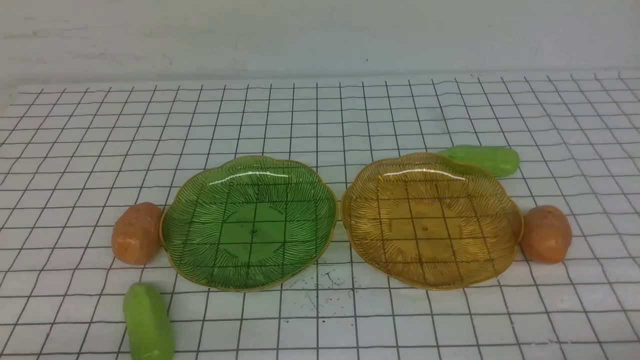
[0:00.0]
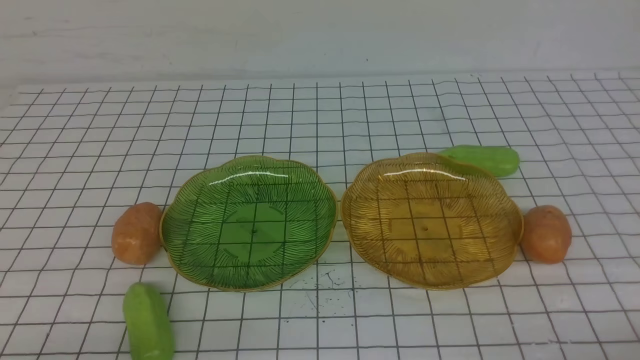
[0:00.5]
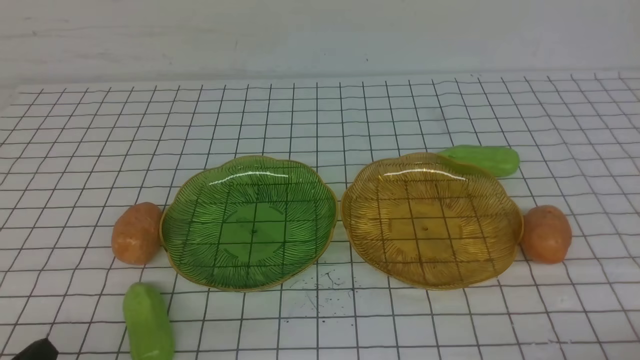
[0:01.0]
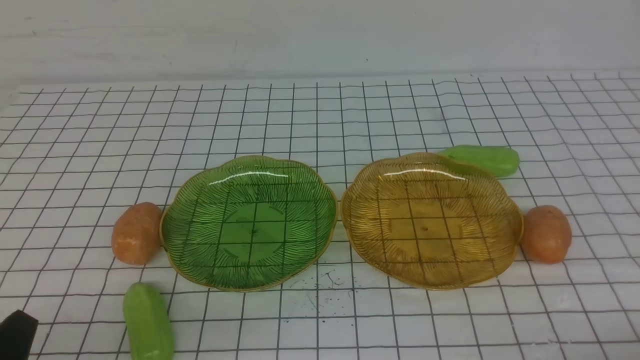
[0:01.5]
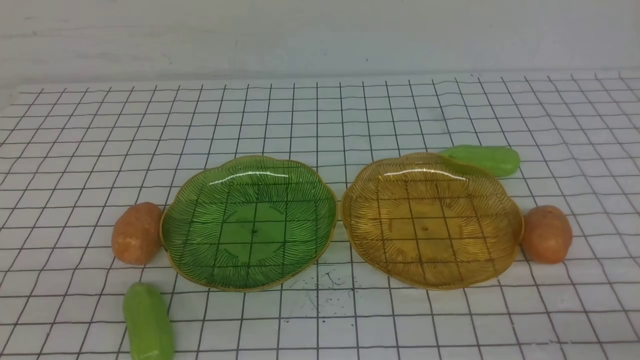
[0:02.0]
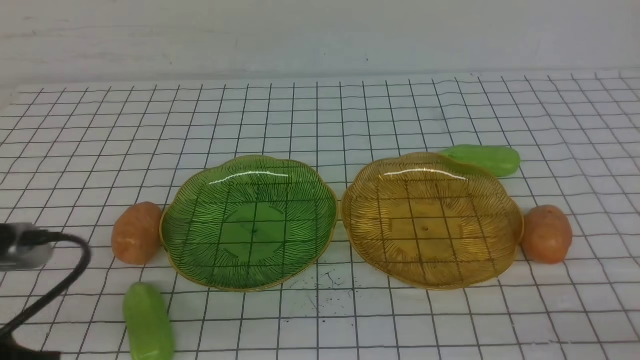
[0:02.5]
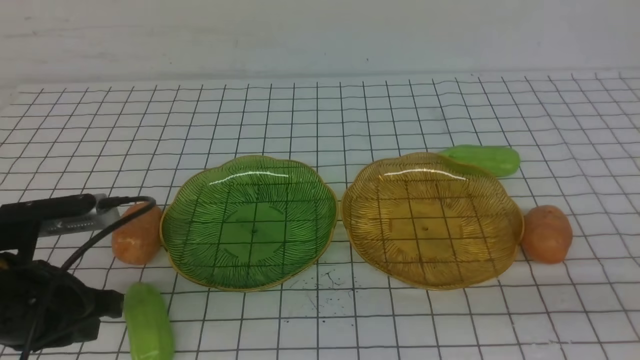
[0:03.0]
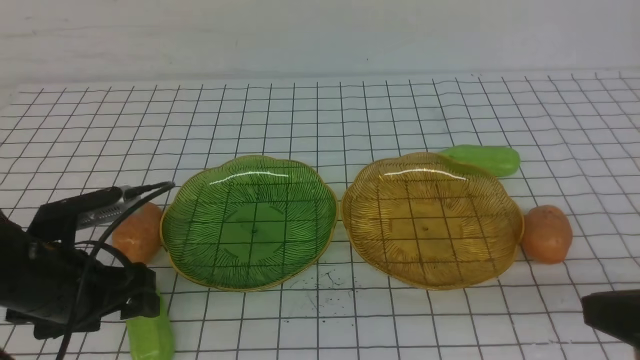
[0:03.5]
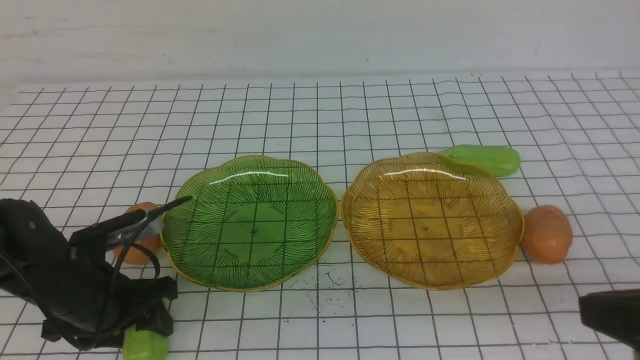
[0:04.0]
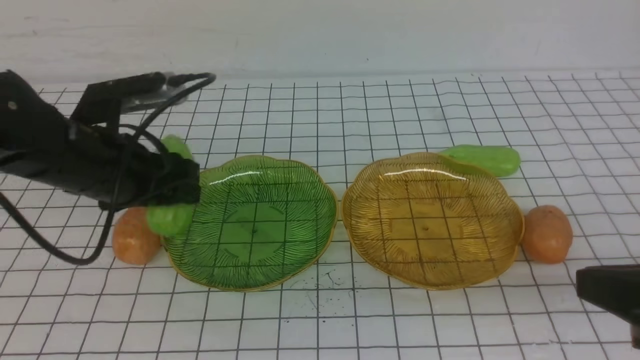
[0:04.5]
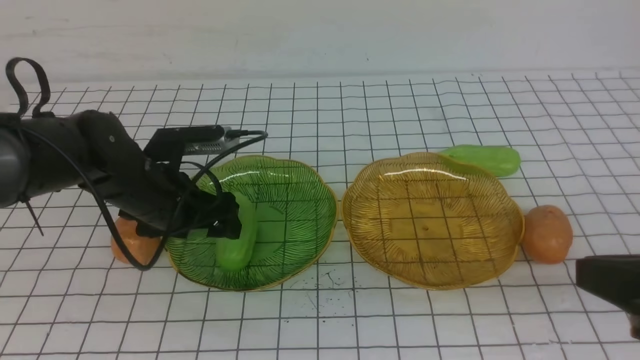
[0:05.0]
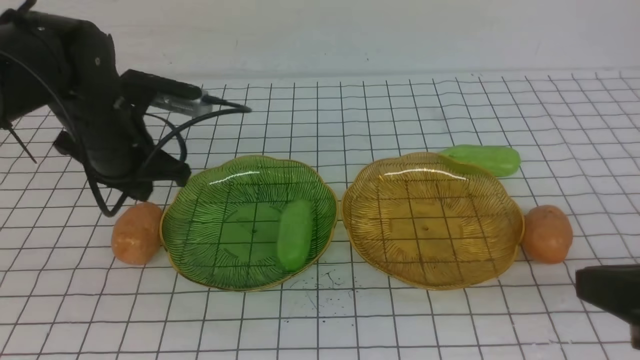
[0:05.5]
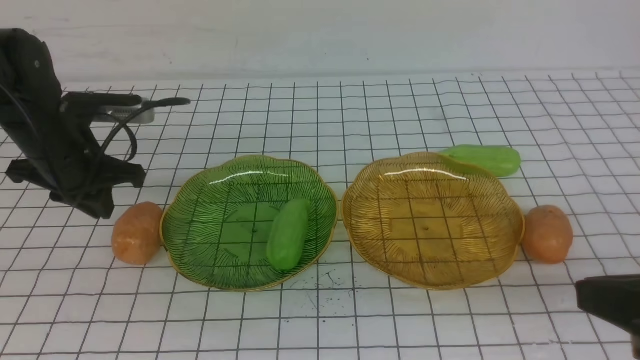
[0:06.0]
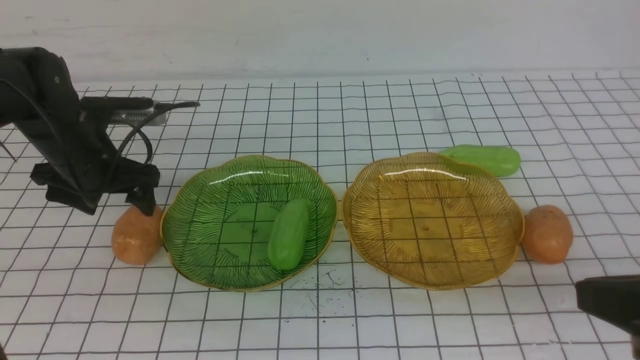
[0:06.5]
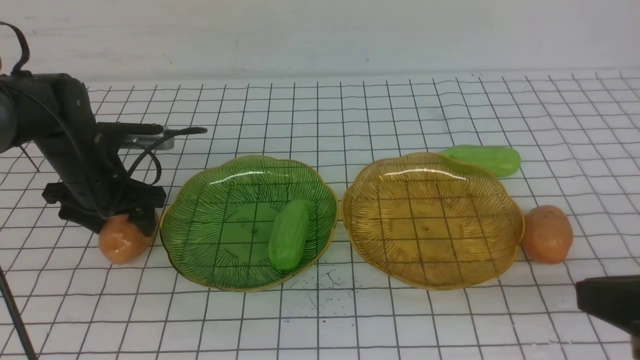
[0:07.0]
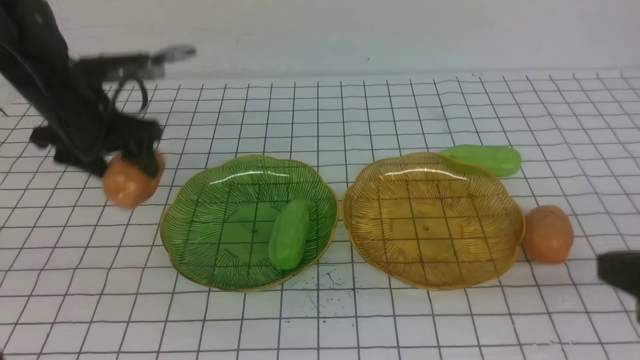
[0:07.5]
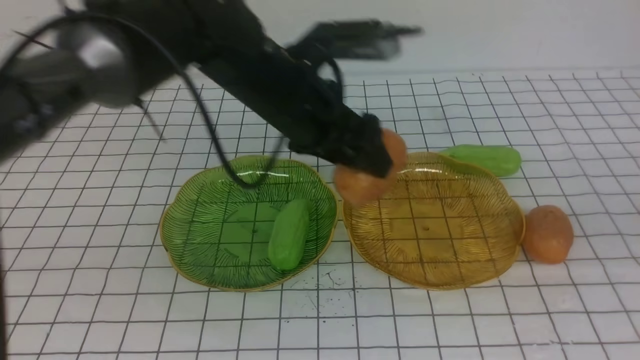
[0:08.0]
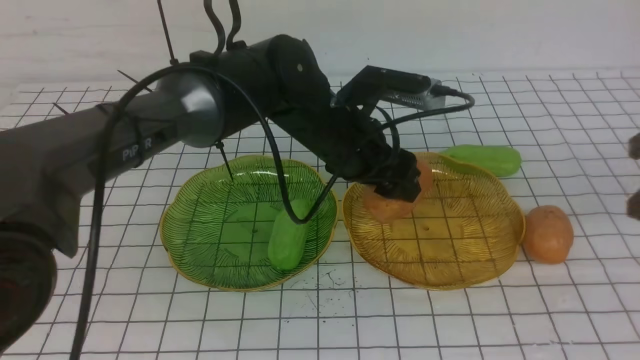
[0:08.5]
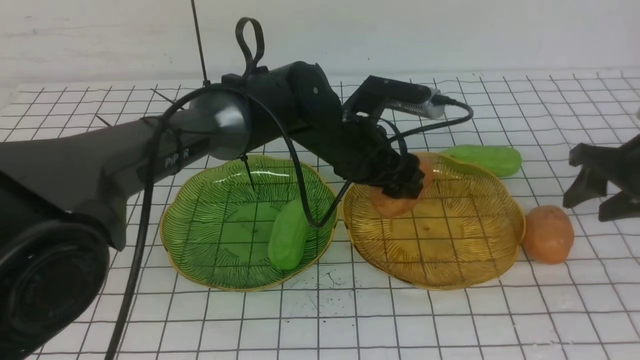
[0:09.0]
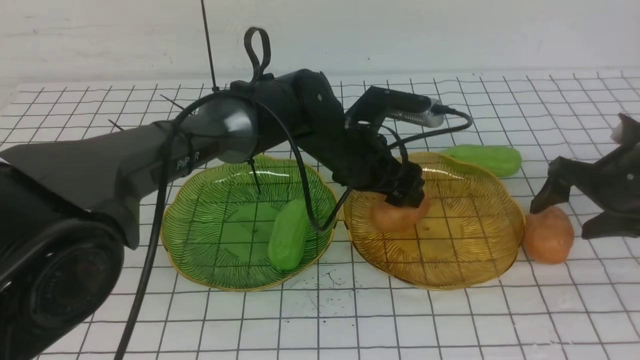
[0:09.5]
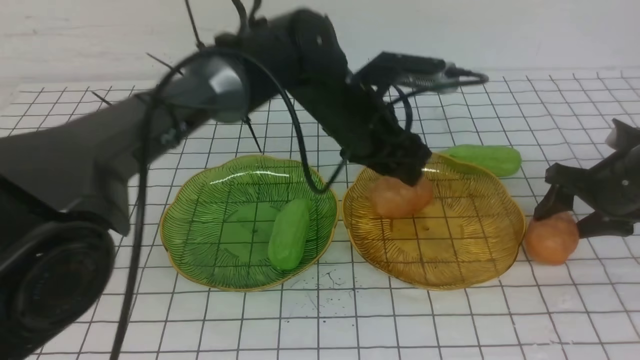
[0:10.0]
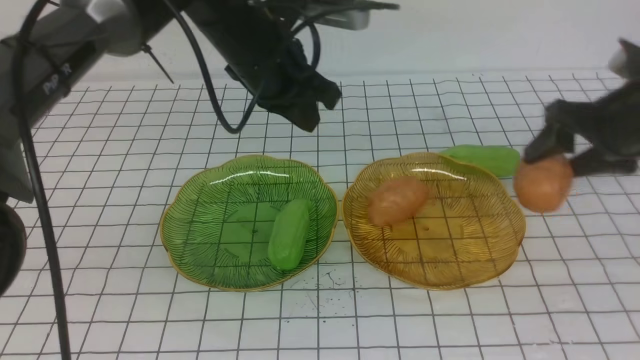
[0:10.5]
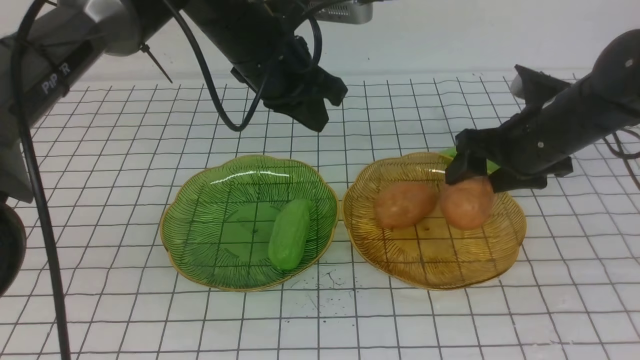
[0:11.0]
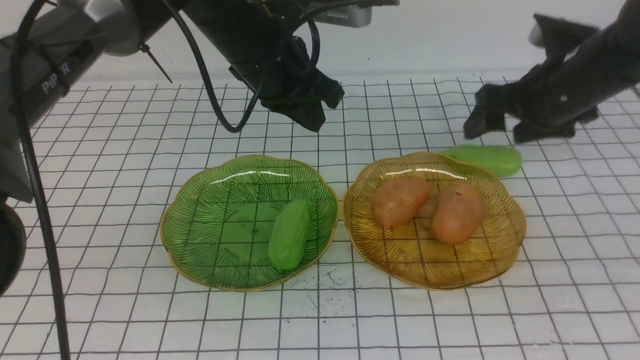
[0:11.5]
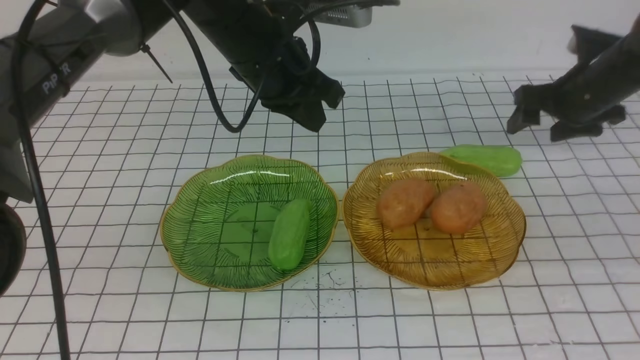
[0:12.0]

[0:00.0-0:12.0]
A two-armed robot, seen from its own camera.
Step, 0:00.0 to 0:05.0: use the left arm to grab a chayote and put it into the left plate.
Step, 0:05.5 to 0:10.0: Grab a potato with your left arm and put it on the right plate.
Step, 0:10.5 to 0:11.0: Grab a potato with your right arm and put it on the right plate.
0:02.0 to 0:04.0: The right gripper shifts roughly 10 cm upward and to the left. Meanwhile the left gripper goes about 20 cm forward and downward, and opens.
0:04.0 to 0:06.0: The left gripper moves forward and upward, roughly 15 cm, and closes its fingers.
0:06.0 to 0:08.0: The right gripper shifts some 10 cm forward, while the left gripper shifts some 25 cm to the right, and opens its fingers.
0:08.0 to 0:10.0: The left gripper goes downward and returns, roughly 10 cm each way; the right gripper travels forward and downward by roughly 25 cm, and opens up.
0:10.0 to 0:12.0: The right gripper moves forward, roughly 10 cm, and reaches roughly 10 cm to the left, then returns, while the left gripper moves to the left and upward, approximately 10 cm, and closes up.

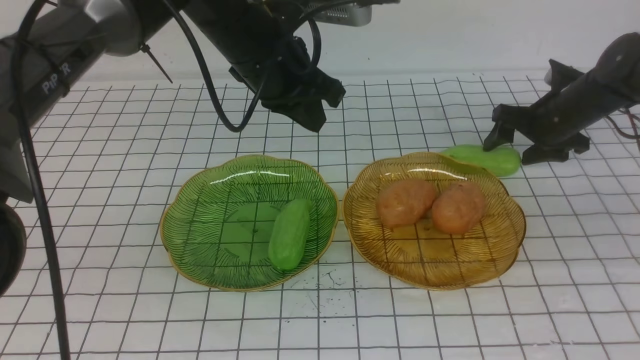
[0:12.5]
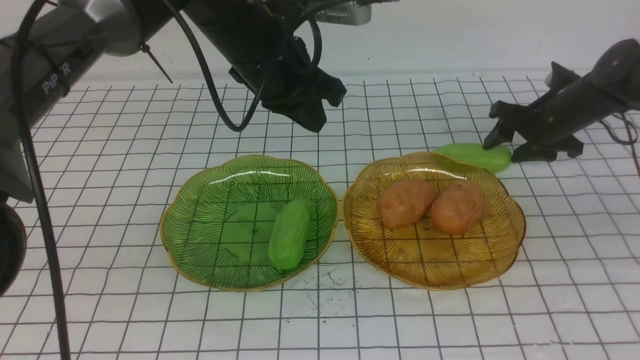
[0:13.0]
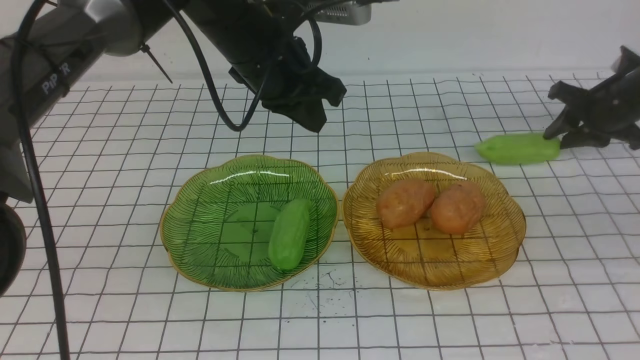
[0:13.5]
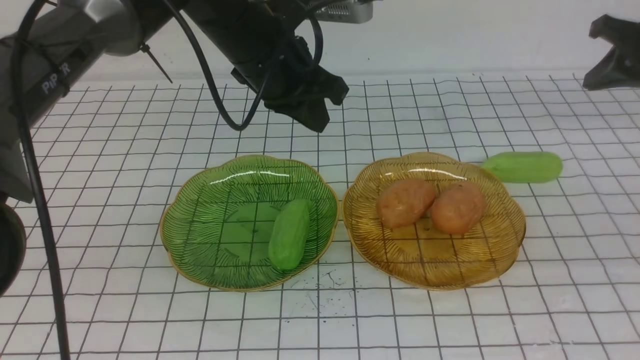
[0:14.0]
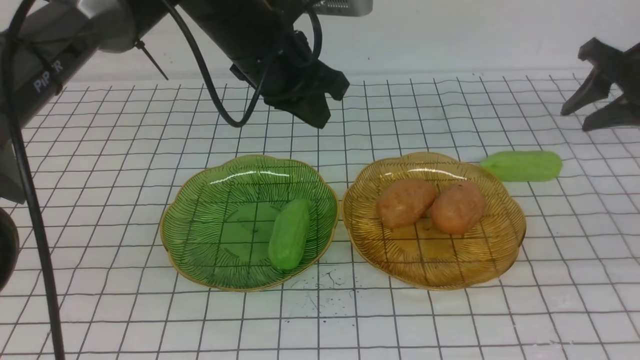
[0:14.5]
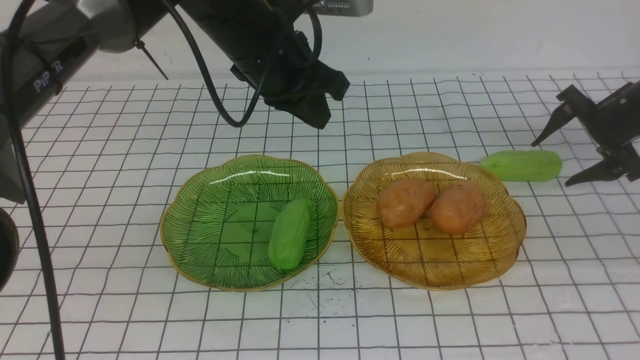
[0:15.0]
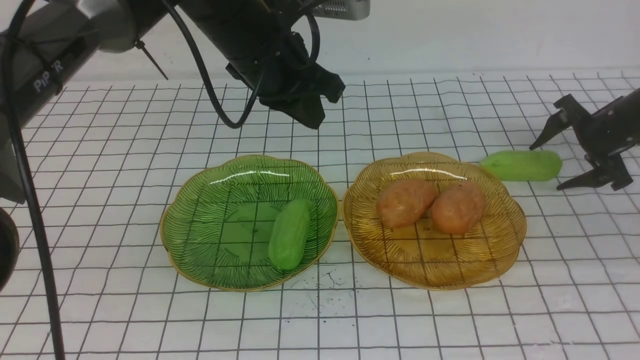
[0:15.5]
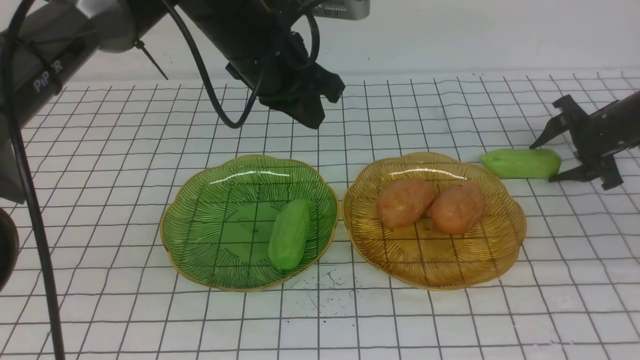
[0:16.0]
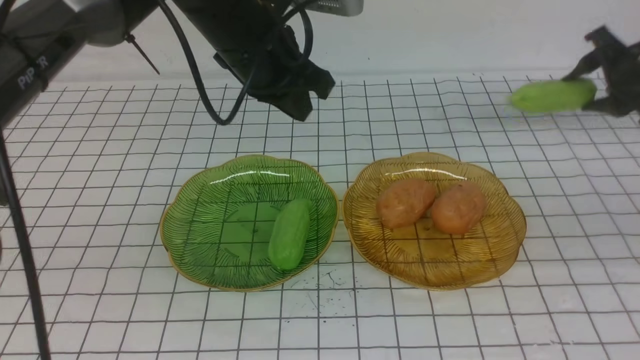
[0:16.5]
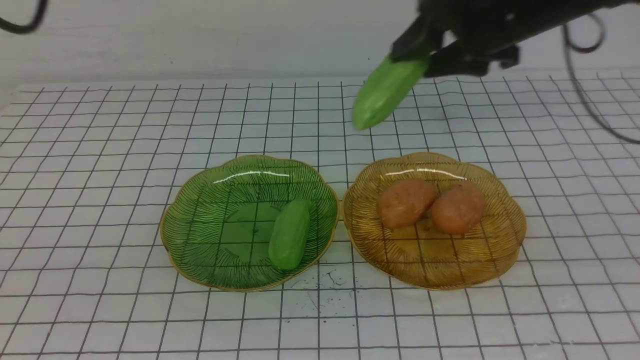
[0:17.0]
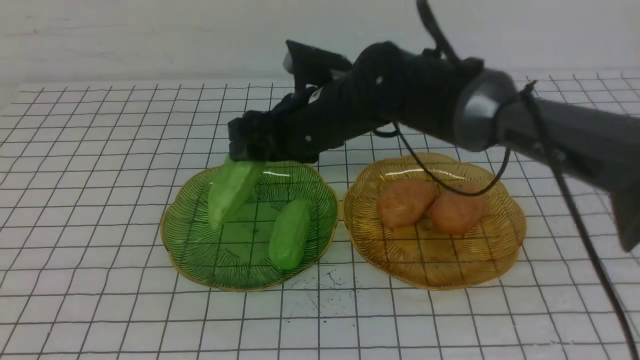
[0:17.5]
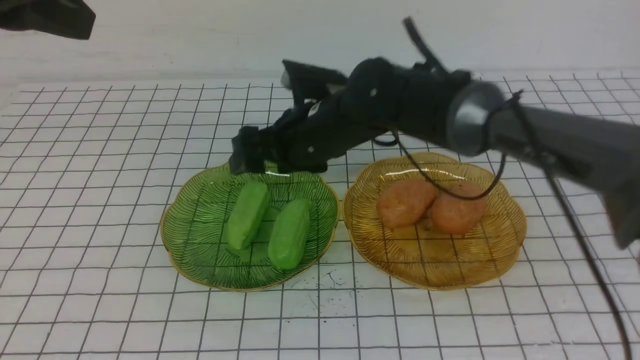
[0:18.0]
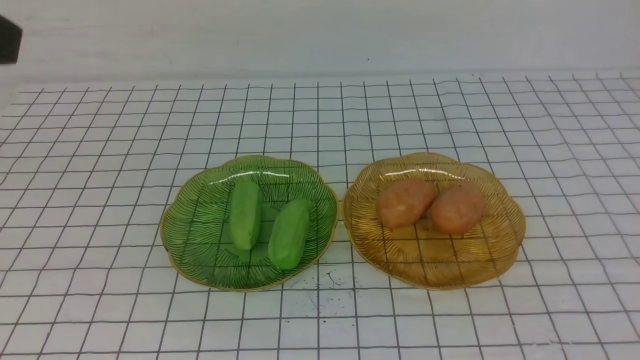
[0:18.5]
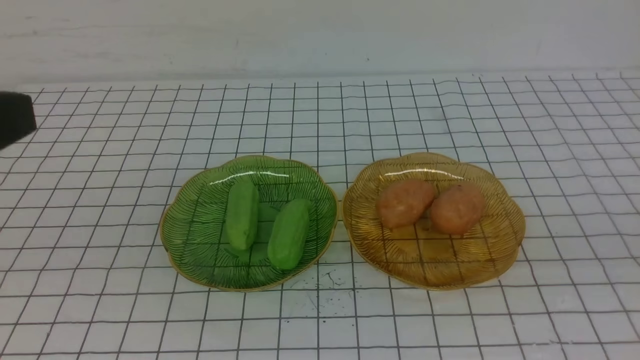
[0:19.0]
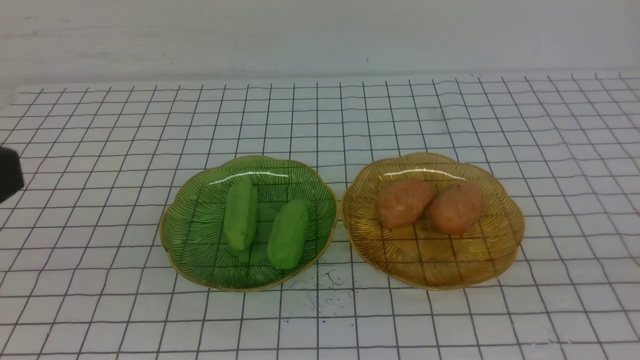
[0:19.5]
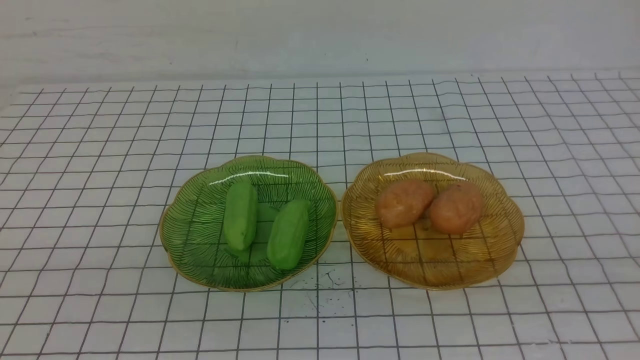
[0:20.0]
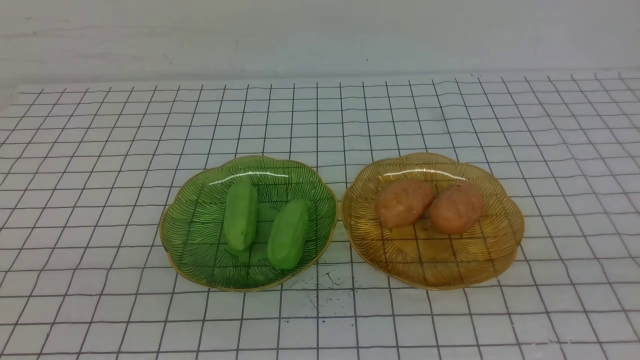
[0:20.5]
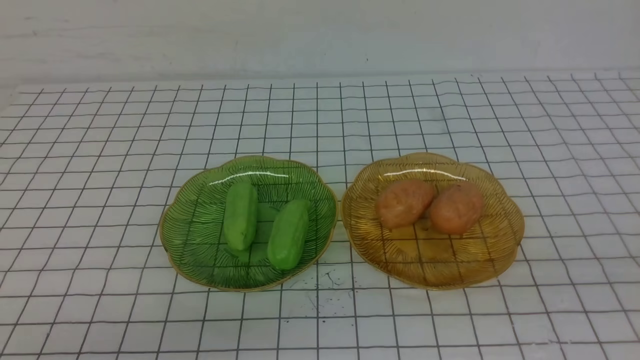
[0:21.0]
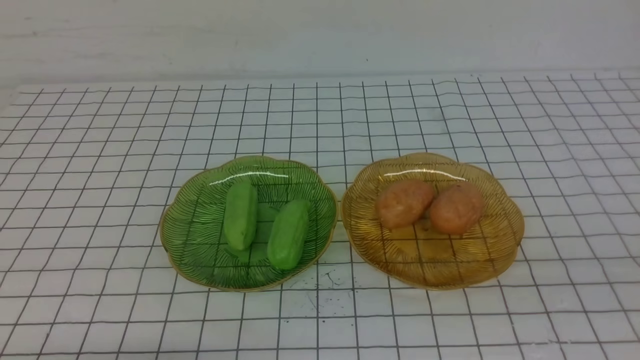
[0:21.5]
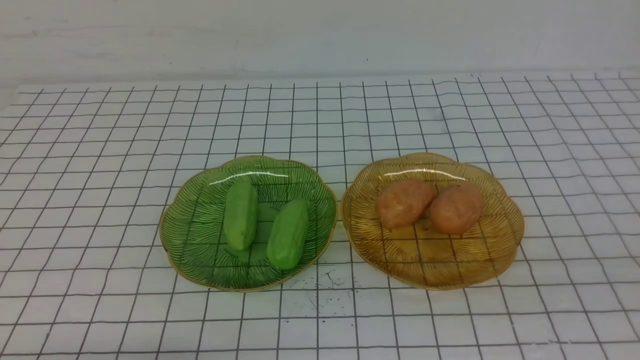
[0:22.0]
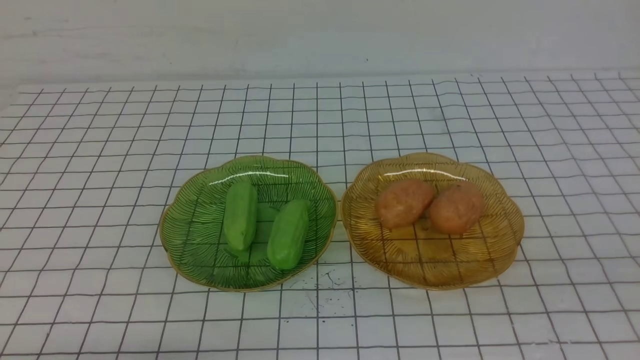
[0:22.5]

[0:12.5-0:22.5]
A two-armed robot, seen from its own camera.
Step, 0:12.5 to 0:18.0: Grab the chayote with your right arm and put it on the left plate.
0:12.5 to 0:14.5: The right gripper heads upward, to the right and backward, covering roughly 10 cm, and closes its fingers.
0:14.5 to 0:16.5: The right gripper travels downward and back again, some 10 cm each way.
0:16.5 to 0:18.5: The right gripper heads backward, upward and to the left, covering some 35 cm, and closes its fingers. Meanwhile the left gripper heads backward, to the left and upward, covering some 30 cm.
0:18.5 to 0:20.5: The right gripper travels backward, downward and to the right by some 30 cm; the left gripper goes roughly 15 cm backward and downward.
